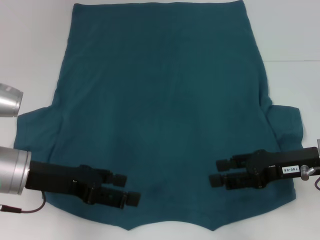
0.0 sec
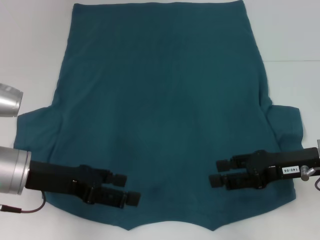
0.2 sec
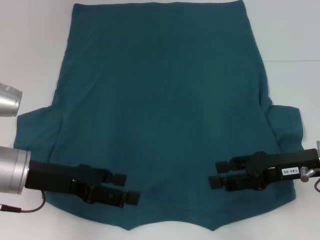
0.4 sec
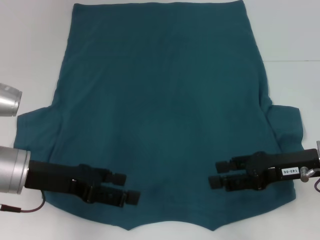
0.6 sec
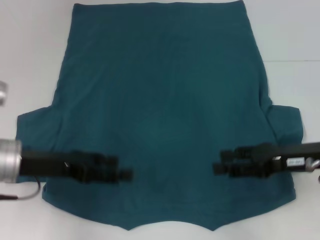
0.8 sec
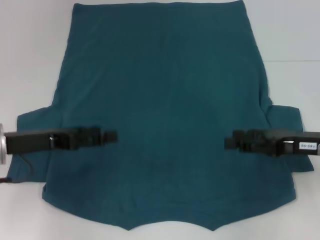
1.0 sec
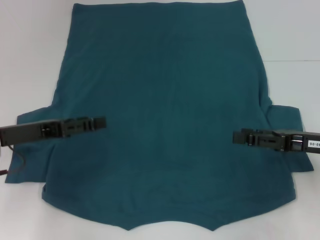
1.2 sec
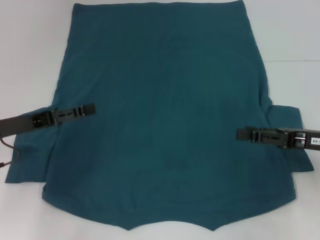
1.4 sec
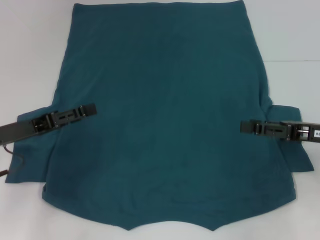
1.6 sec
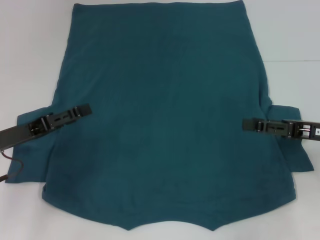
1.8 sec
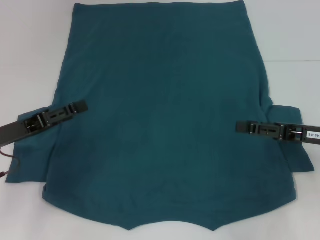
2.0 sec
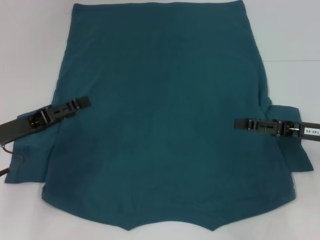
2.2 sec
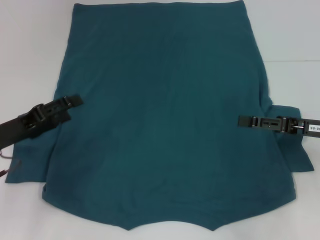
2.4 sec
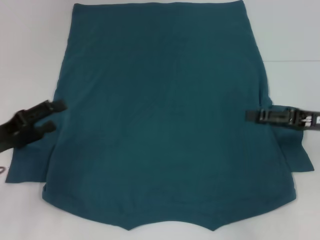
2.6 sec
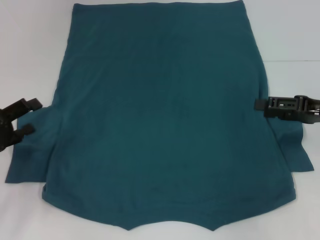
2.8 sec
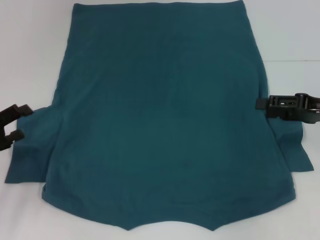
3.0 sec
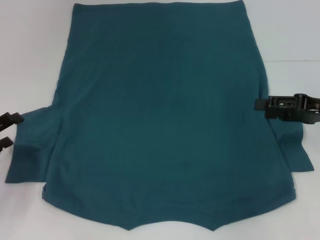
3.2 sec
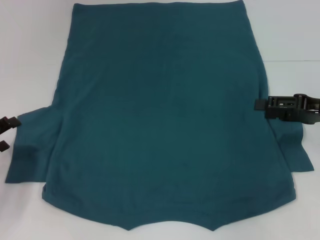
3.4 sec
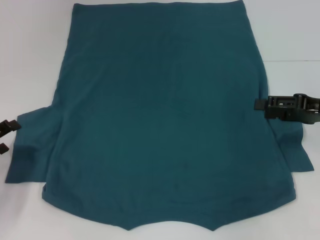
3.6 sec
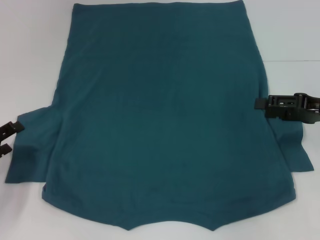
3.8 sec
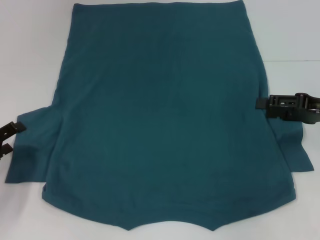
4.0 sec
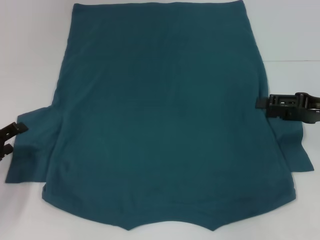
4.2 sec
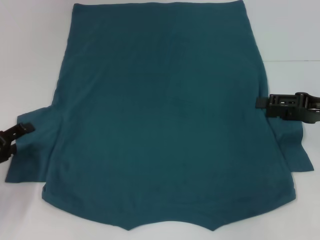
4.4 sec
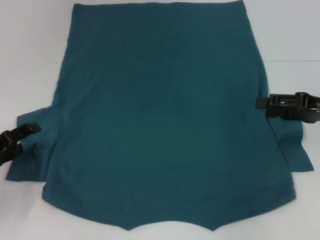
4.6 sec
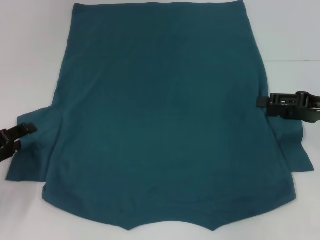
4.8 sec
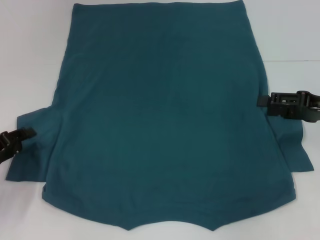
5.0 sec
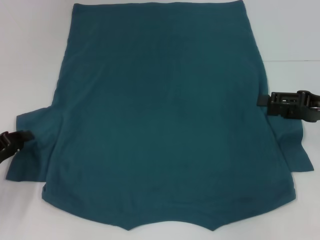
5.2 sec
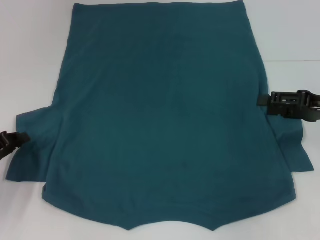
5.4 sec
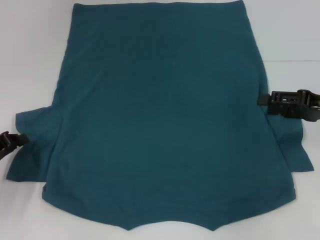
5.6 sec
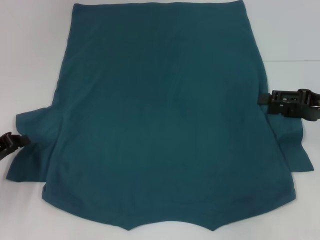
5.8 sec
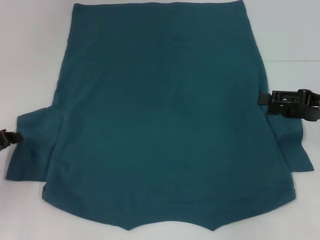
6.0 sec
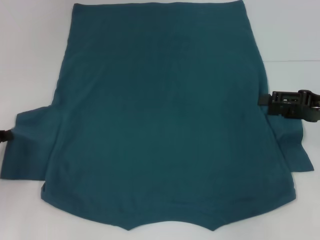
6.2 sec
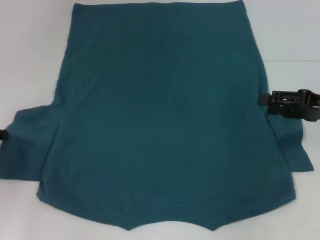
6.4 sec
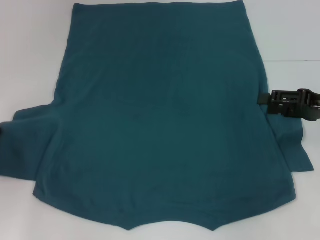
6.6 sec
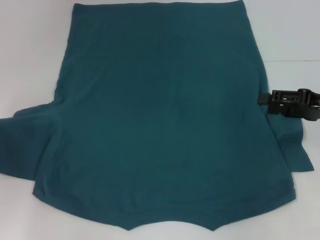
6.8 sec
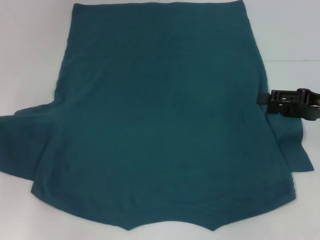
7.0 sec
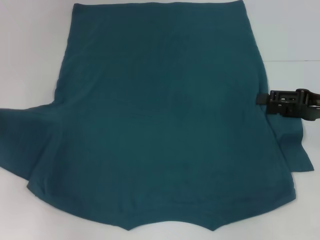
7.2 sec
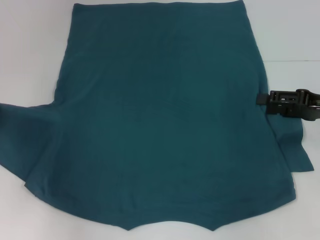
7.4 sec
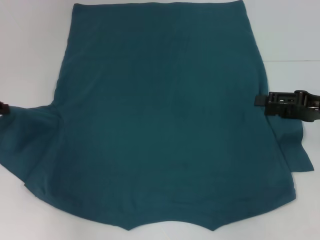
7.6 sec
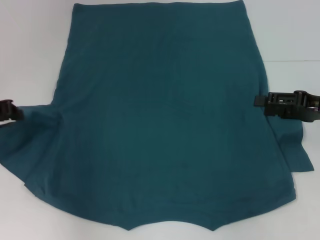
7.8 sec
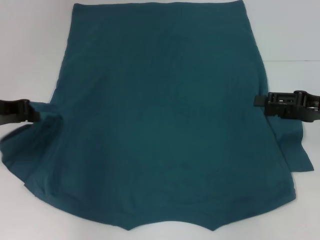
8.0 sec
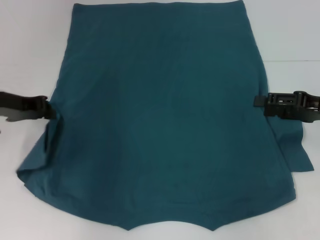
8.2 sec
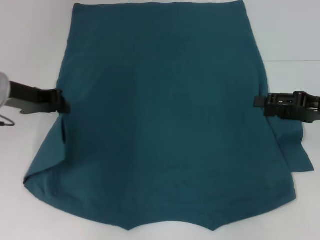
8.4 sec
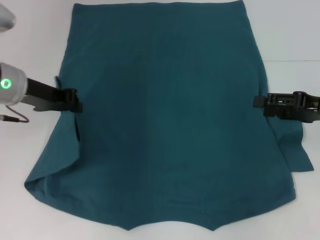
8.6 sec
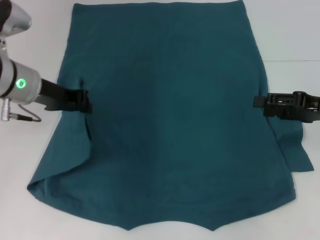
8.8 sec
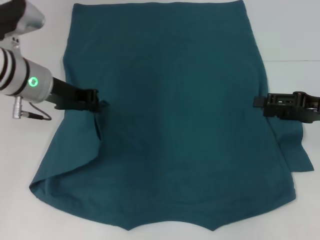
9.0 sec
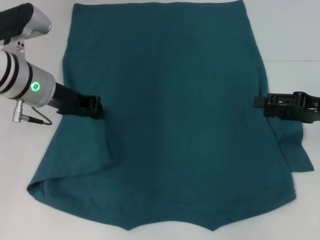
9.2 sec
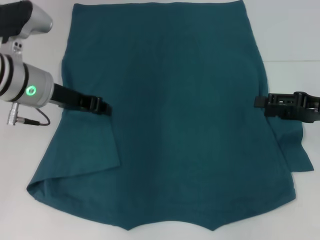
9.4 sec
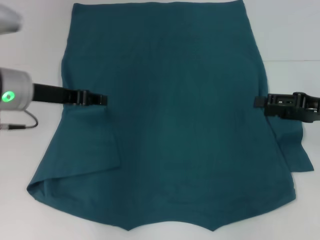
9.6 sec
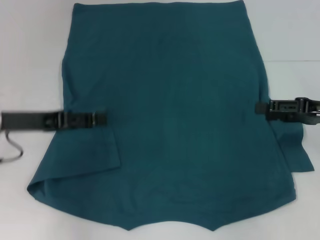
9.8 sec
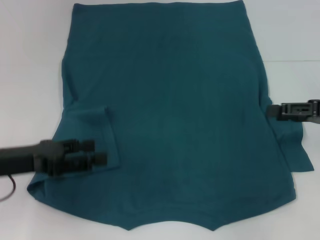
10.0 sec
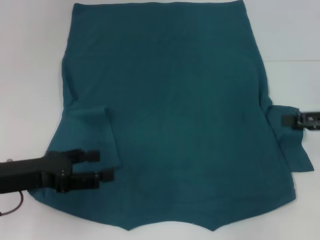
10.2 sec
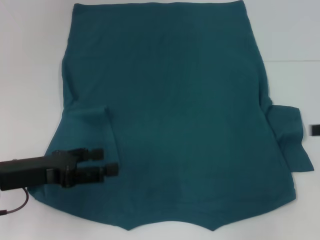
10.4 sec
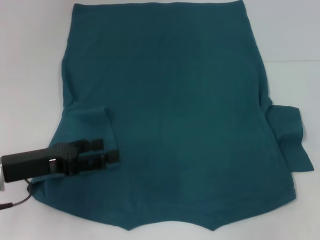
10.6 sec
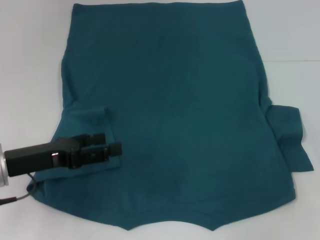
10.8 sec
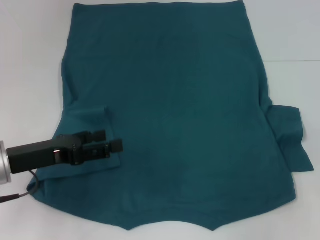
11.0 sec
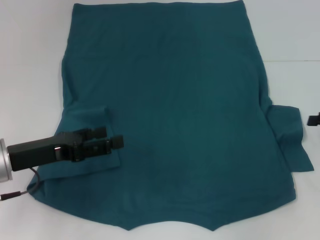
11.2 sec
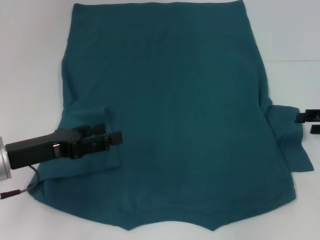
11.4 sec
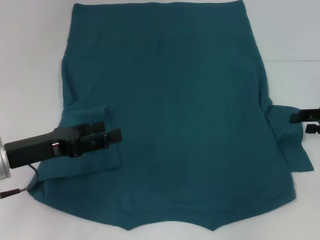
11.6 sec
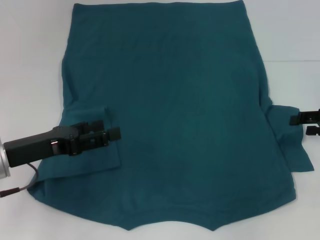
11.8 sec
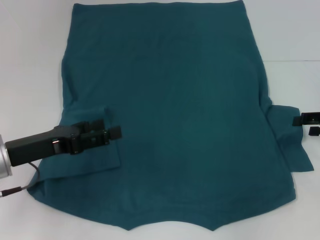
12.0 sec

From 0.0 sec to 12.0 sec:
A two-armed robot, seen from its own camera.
Step, from 0.0 sec to 9.6 sec: Fold the bottom left sleeve with your left hand.
From 0.0 sec to 1.6 sec: The right gripper ends up some 5 cm from where it was. Meanwhile the left gripper goes approximately 5 cm to the left.
From 1.6 sec to 3.0 sec: The left gripper shifts approximately 5 cm to the left.
From 3.0 sec to 4.4 sec: The grippers make only small movements.
From 4.4 sec to 6.0 sec: The left gripper closes.
From 6.0 sec to 7.6 sec: The left gripper is displaced upward and forward by roughly 10 cm.
From 7.6 sec to 9.0 sec: The left gripper shifts some 15 cm to the right.
From 9.0 sec to 10.4 sec: The right gripper is displaced to the right by approximately 5 cm, while the left gripper heads backward, downward and to the left, covering about 15 cm, and opens up.
From 10.4 sec to 12.0 sec: The right gripper moves roughly 5 cm.

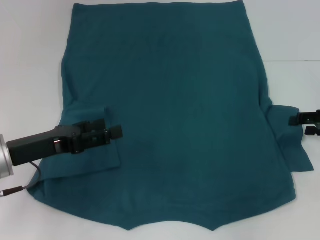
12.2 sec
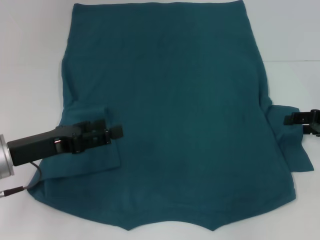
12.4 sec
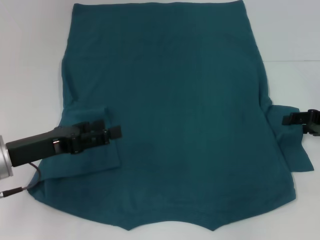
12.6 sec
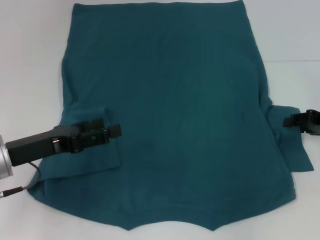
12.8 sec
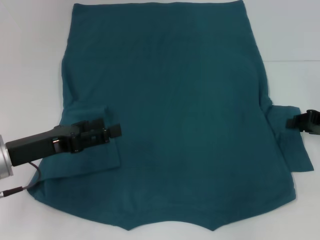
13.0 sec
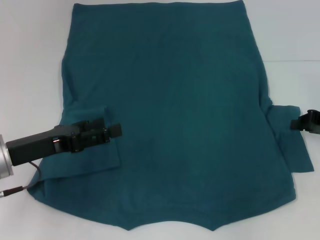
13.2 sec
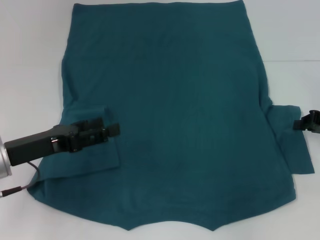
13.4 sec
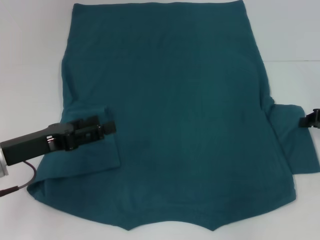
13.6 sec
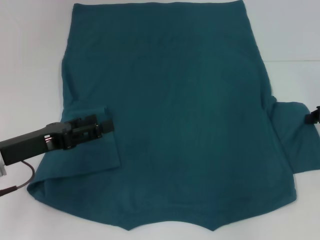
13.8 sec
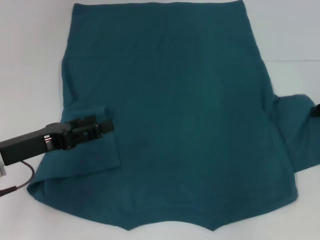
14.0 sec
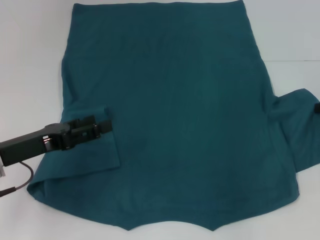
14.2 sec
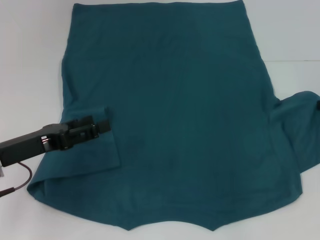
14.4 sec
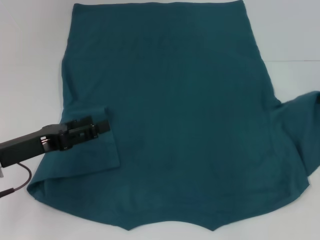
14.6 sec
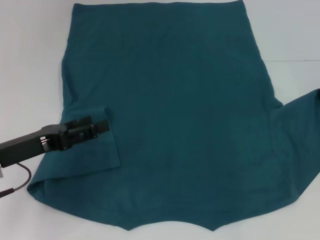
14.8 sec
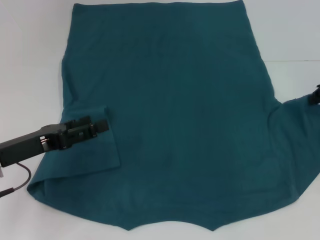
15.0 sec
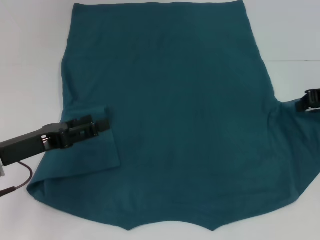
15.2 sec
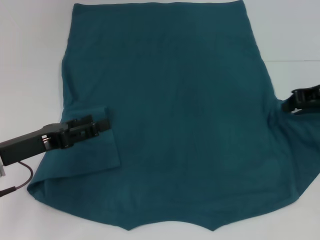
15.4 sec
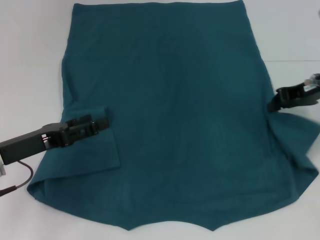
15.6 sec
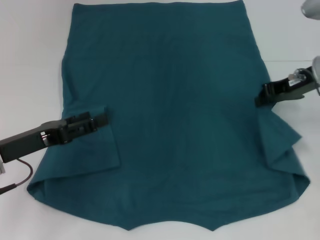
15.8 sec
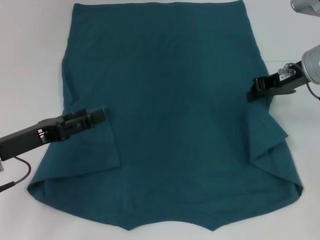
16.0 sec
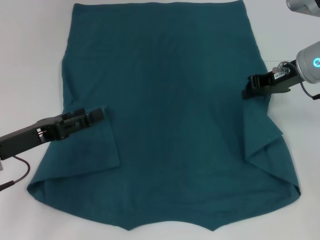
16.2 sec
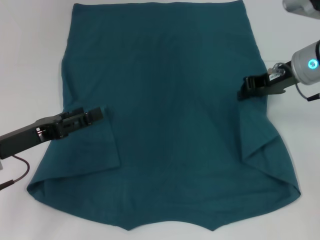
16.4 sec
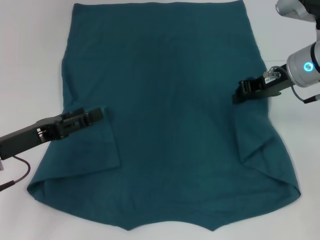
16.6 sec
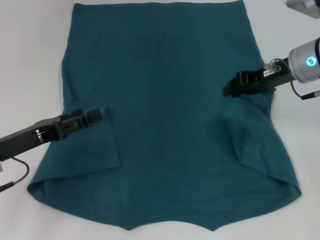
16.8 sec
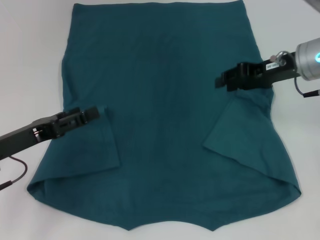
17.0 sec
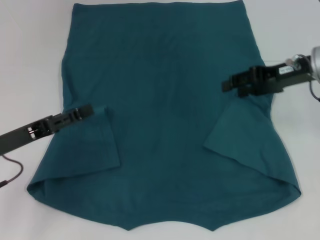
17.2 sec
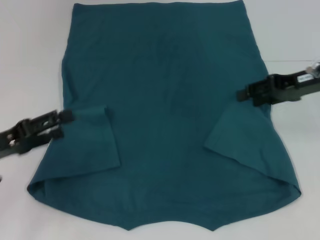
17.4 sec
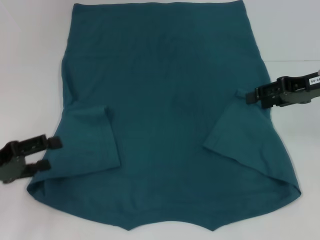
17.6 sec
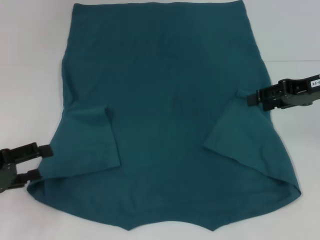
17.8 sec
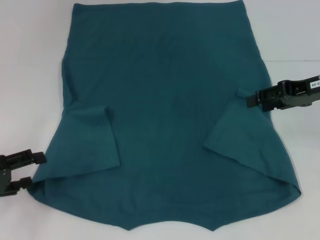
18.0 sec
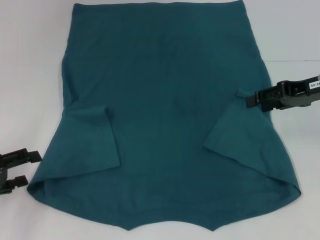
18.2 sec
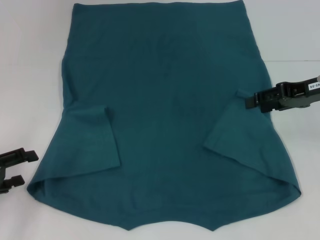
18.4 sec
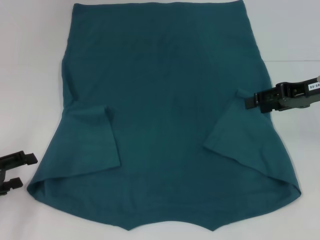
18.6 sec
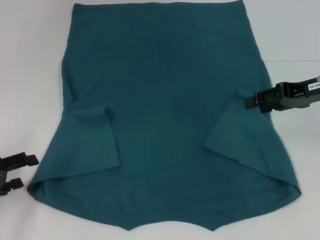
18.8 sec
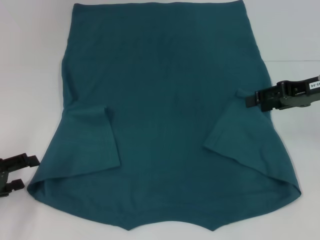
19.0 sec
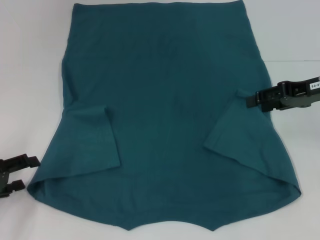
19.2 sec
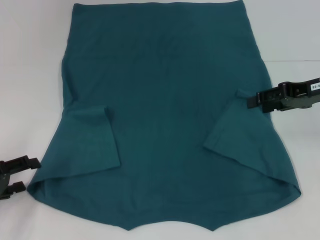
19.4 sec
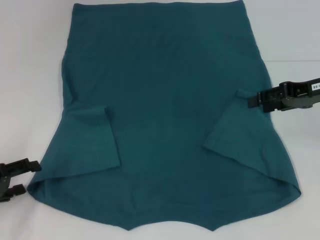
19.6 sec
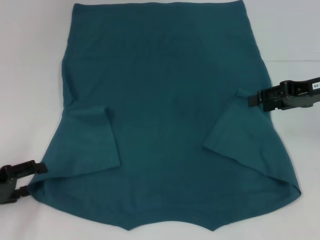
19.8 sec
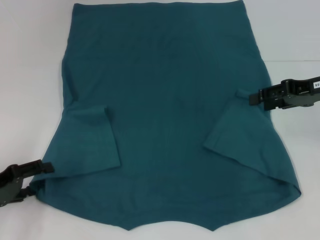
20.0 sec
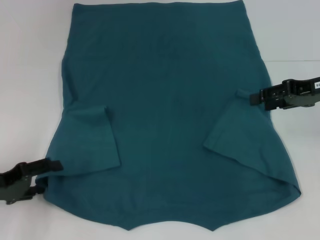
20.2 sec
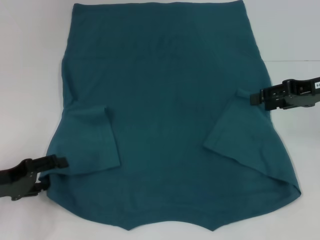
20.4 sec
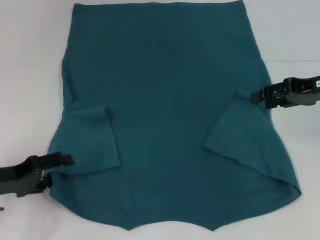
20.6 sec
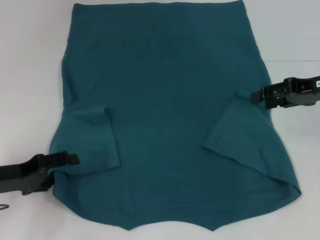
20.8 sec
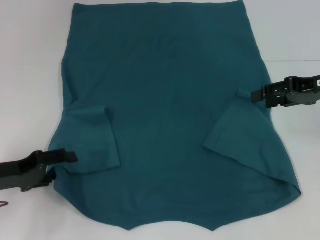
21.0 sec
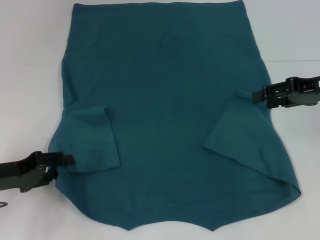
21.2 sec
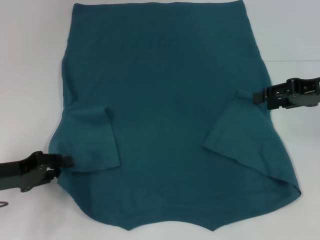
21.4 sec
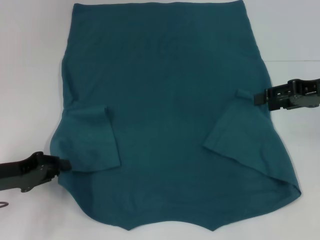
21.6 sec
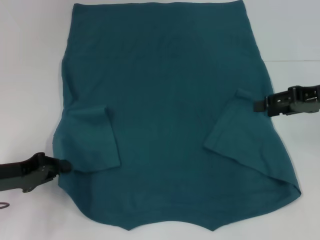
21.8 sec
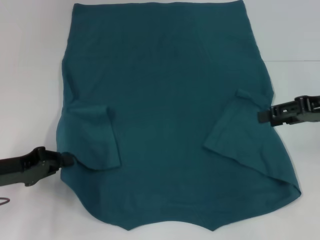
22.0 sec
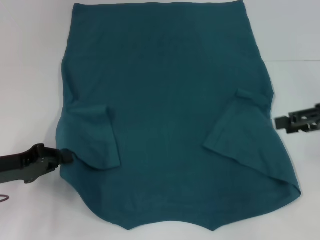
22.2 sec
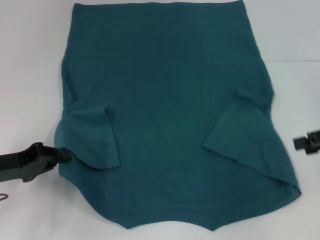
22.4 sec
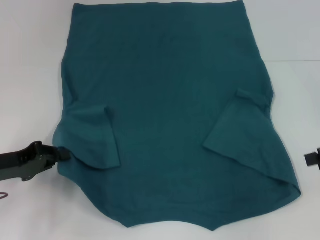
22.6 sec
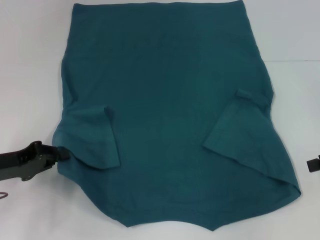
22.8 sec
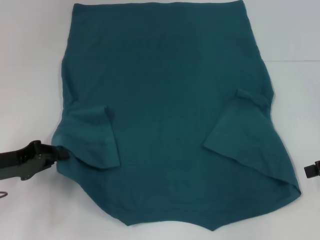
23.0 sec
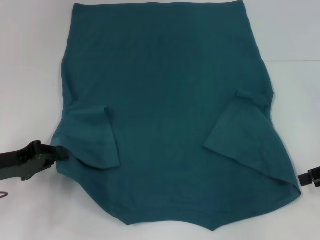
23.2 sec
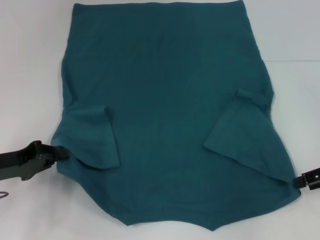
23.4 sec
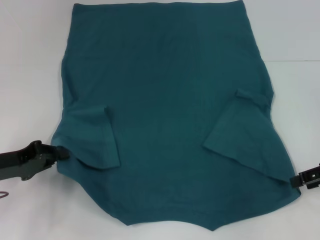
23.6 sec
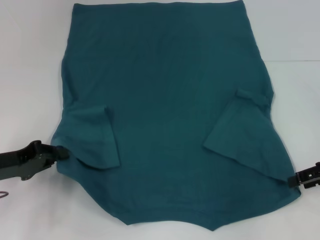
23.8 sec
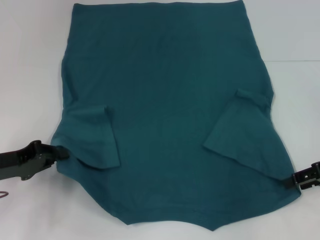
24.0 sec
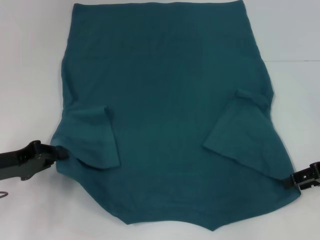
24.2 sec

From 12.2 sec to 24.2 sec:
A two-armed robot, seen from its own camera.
Step, from 12.2 sec to 17.0 sec: Fold the bottom right sleeve to the right.
Step, from 17.2 sec to 21.8 sec: Grab the bottom left corner with your left hand.
From 12.2 sec to 13.8 sec: The right gripper closes up.
From 13.8 sec to 15.2 sec: The right gripper ends up roughly 5 cm from where it was.
From 15.2 sec to 16.6 sec: The right gripper moves to the left, approximately 10 cm.
From 16.6 sec to 18.2 sec: The right gripper travels to the right by some 5 cm, and opens. The left gripper shifts approximately 10 cm to the left.
From 18.2 sec to 21.2 sec: The grippers move only a little.
From 21.2 sec to 22.6 sec: The right gripper goes about 10 cm to the right and backward. The left gripper closes up.
From 22.6 sec to 24.2 sec: The right gripper changes place by approximately 5 cm.
